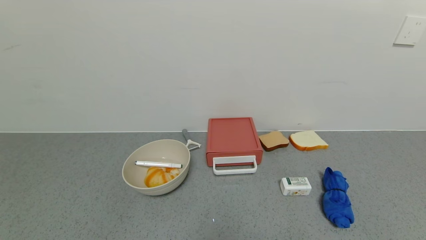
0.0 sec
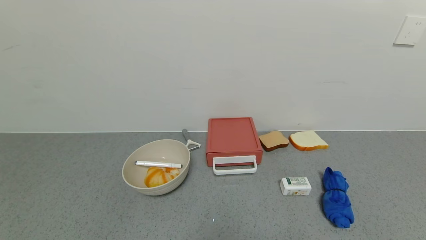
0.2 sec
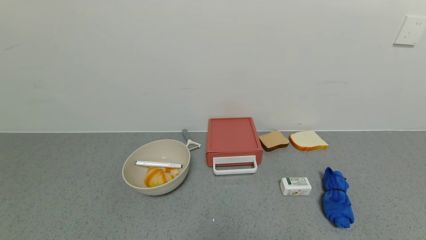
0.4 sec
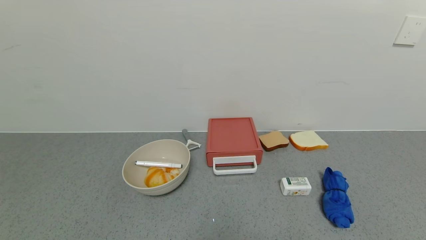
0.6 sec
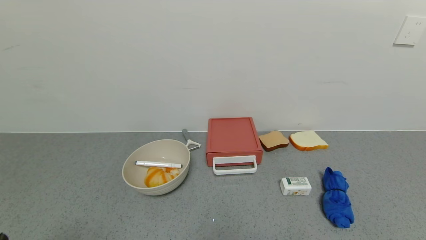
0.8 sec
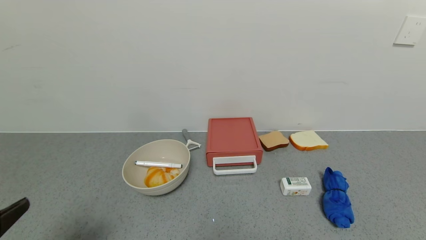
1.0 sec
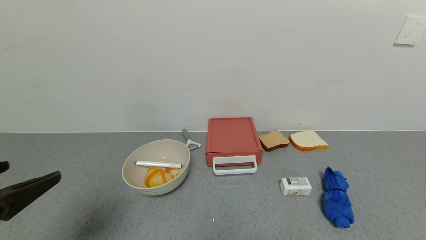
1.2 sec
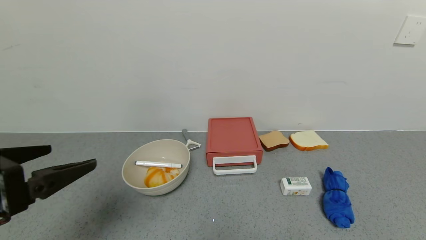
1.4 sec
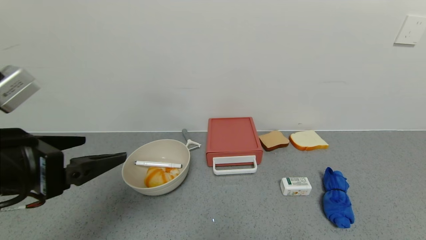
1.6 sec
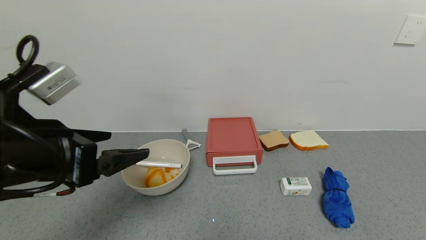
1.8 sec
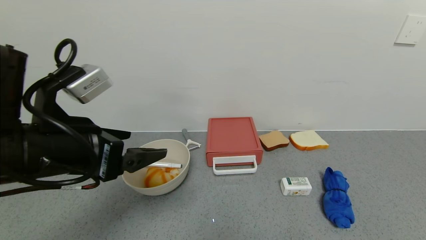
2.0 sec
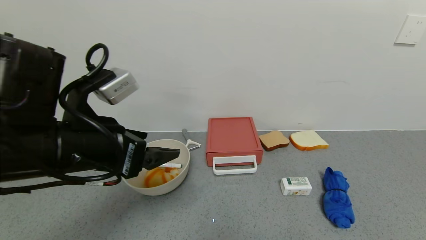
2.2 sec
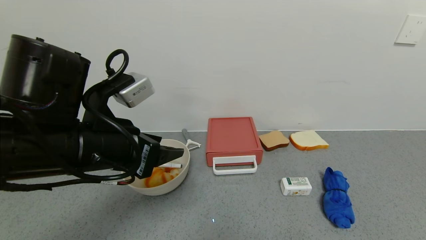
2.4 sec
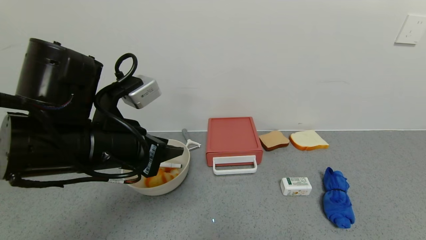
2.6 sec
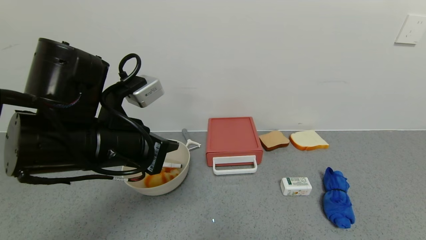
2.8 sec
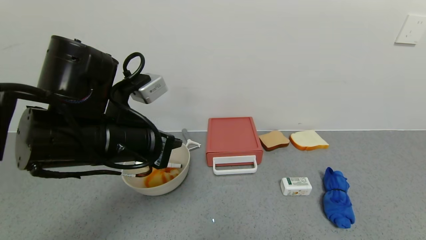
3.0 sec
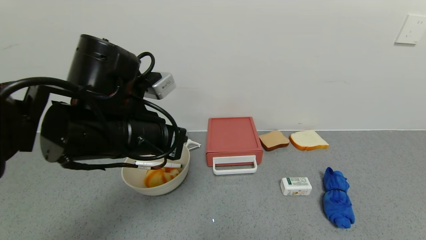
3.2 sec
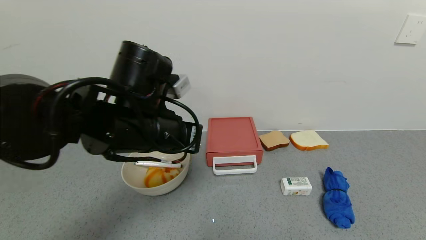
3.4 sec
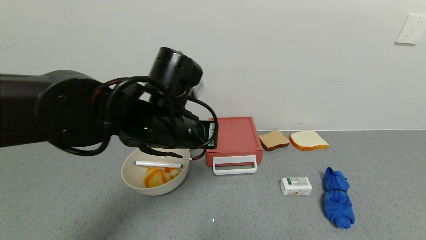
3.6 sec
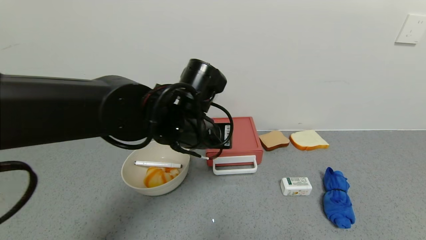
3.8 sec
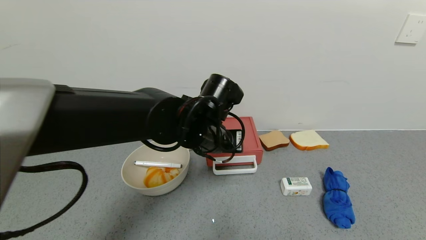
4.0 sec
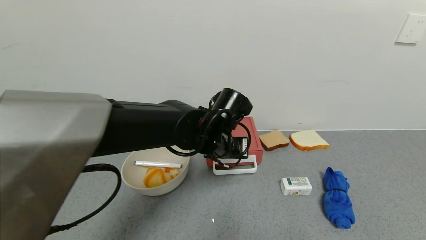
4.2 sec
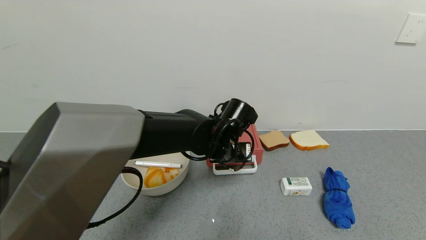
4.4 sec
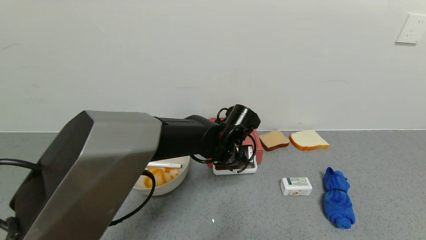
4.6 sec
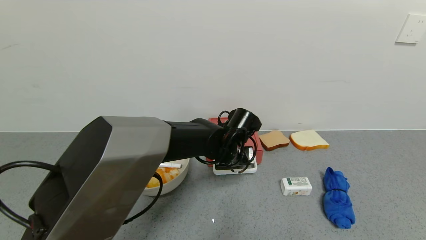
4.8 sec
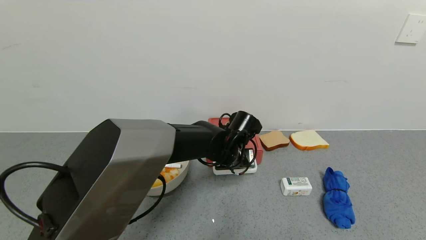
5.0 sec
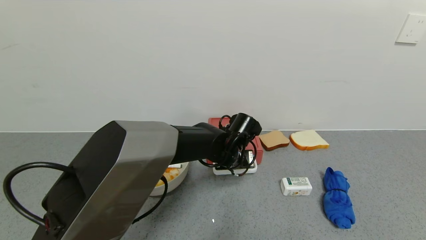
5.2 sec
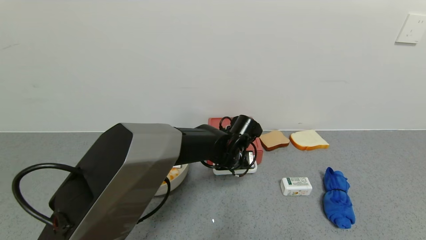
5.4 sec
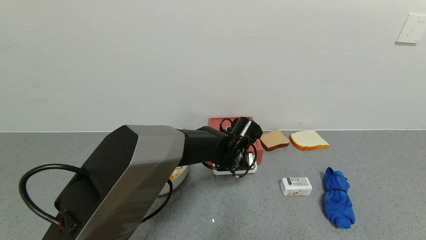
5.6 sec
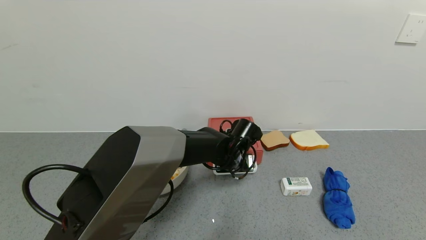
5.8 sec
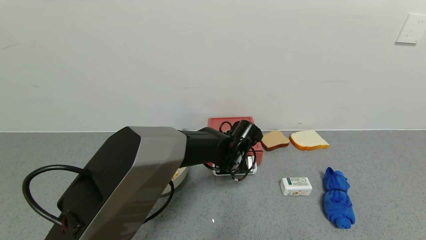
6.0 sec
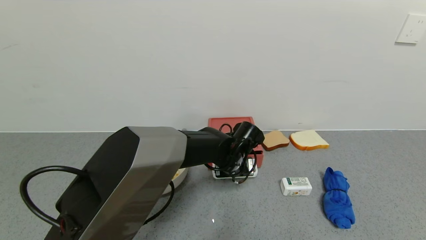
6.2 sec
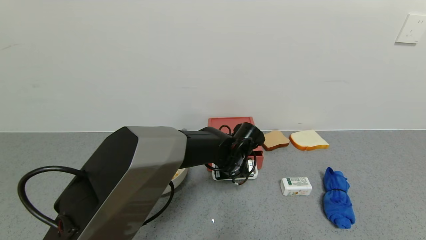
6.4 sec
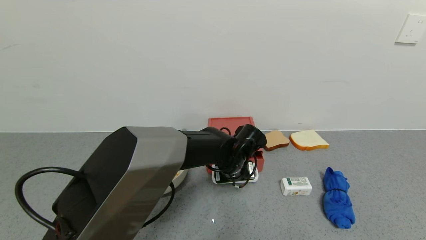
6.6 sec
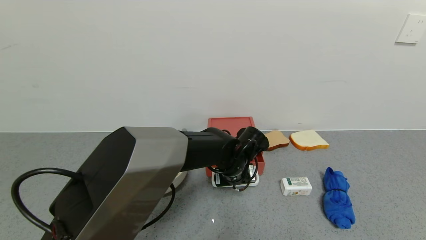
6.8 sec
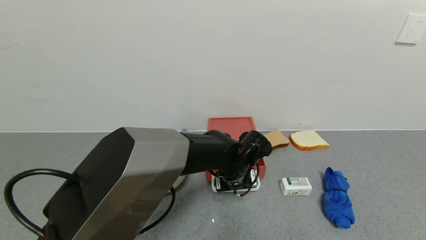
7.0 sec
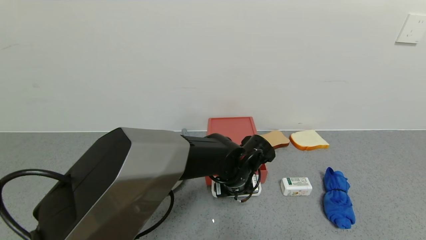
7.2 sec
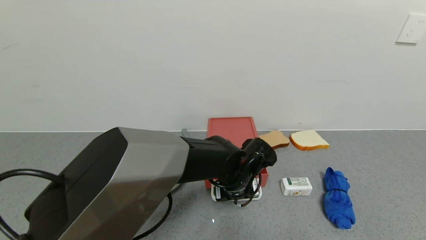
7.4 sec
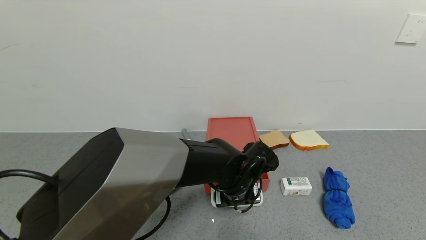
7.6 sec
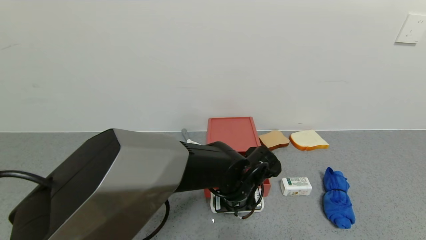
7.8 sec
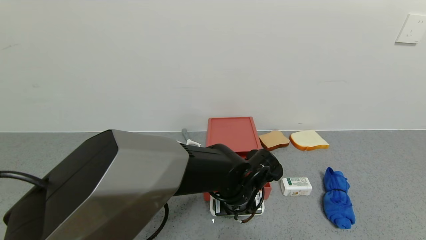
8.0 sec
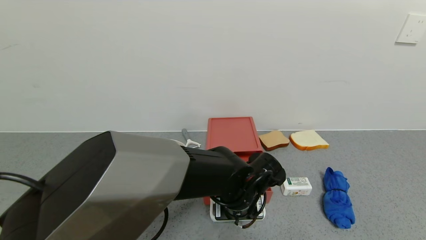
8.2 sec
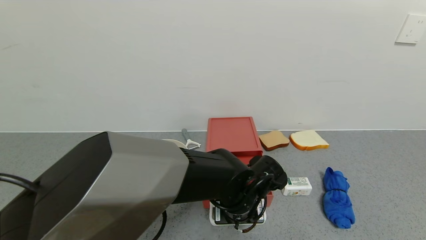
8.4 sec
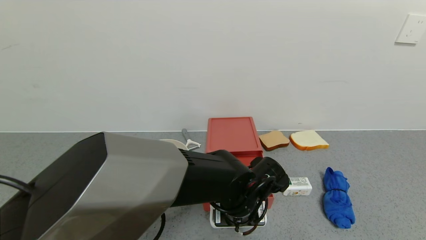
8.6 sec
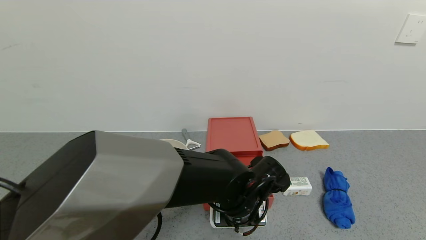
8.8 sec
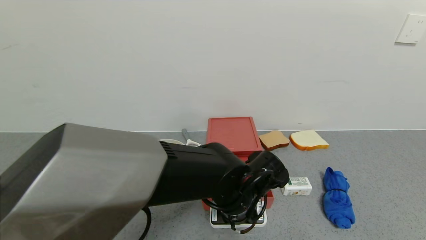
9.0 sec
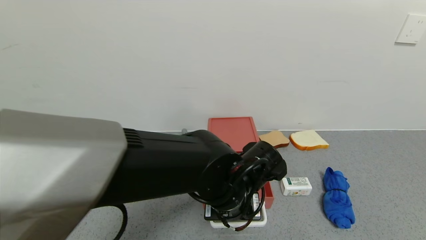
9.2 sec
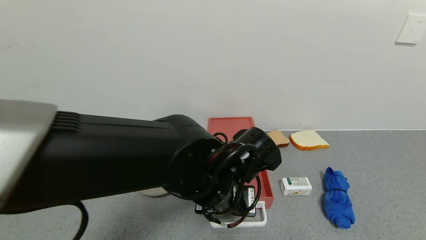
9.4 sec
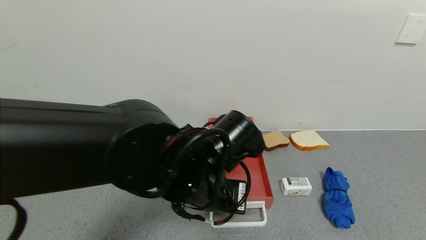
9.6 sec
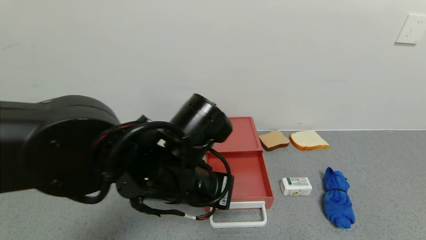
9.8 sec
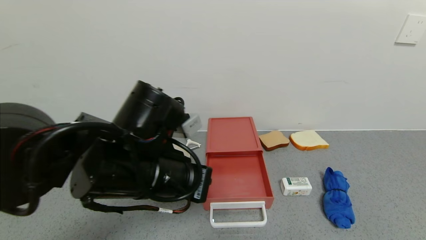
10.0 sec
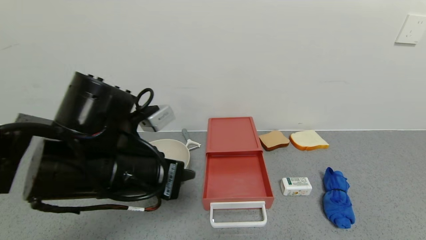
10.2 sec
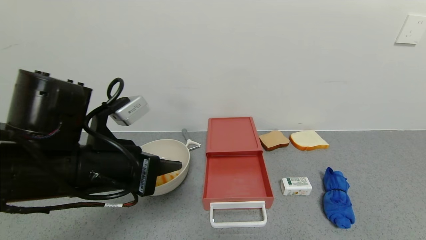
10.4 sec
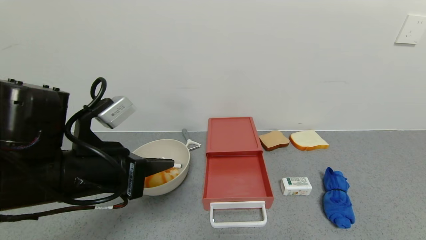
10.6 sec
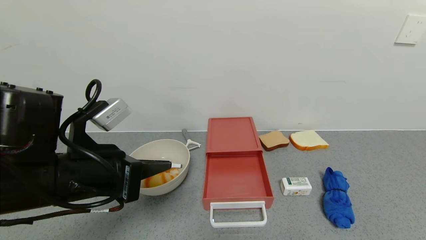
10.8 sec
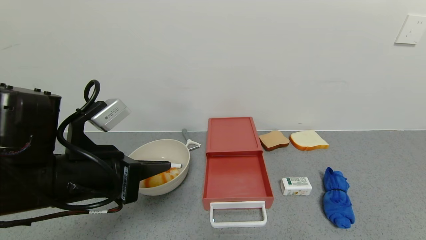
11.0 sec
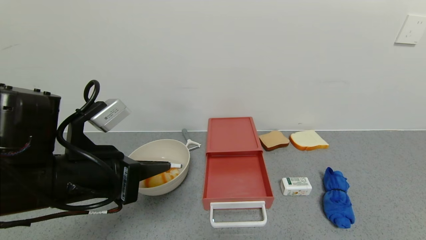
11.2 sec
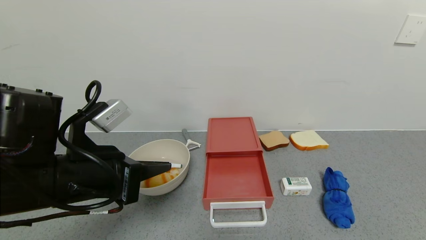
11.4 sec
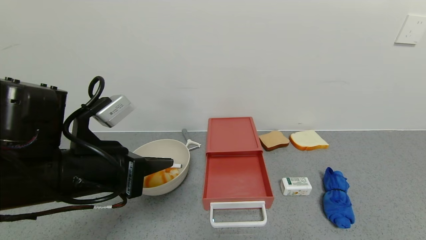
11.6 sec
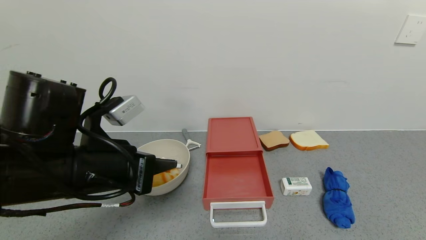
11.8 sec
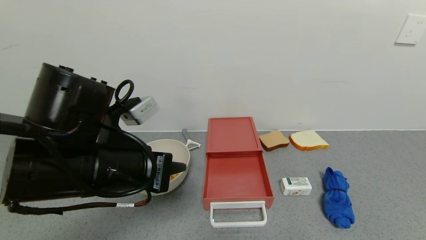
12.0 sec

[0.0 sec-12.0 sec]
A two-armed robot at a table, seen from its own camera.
Task of the whole recording: use the gripper to open the drawer and close the red drawer.
Step, 0.0 sec to 9.4 sec: Open the red drawer with left gripper.
0.0 sec to 1.6 sec: The left gripper goes some 25 cm upward and forward.
1.6 sec to 3.0 sec: The left gripper heads to the right and forward, covering approximately 10 cm, and closes its fingers.
3.0 sec to 4.4 sec: The left gripper shifts roughly 20 cm to the right, forward and downward.
4.4 sec to 6.0 sec: The left gripper travels downward by about 5 cm.
6.0 sec to 7.6 sec: The left gripper moves backward, some 10 cm.
7.6 sec to 9.0 sec: The left gripper moves some 5 cm.
9.0 sec to 10.4 sec: The left gripper shifts about 25 cm to the left and upward.
10.4 sec to 12.0 sec: The grippers move only a little.

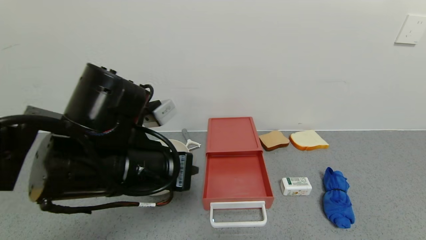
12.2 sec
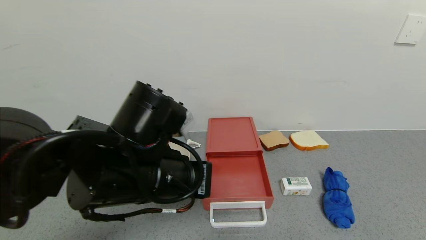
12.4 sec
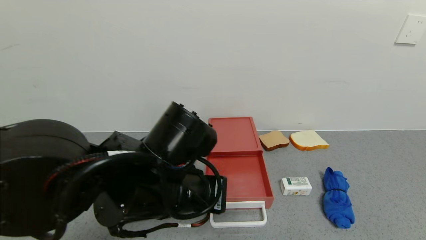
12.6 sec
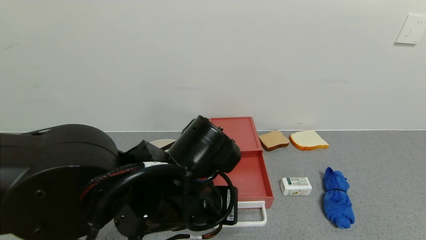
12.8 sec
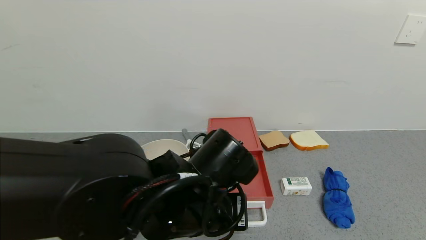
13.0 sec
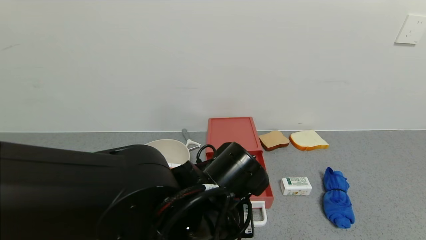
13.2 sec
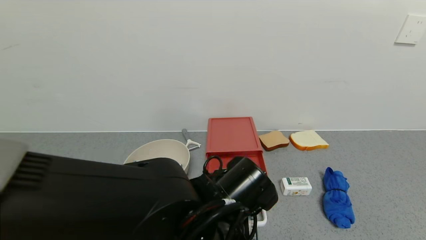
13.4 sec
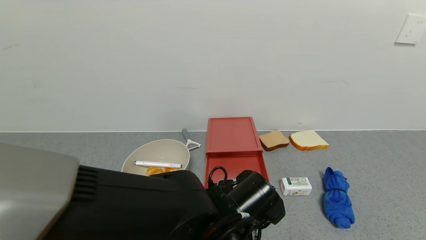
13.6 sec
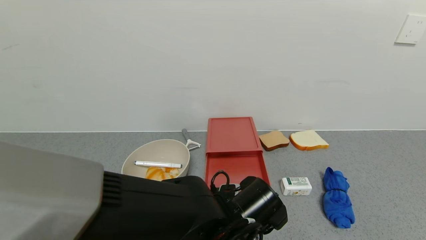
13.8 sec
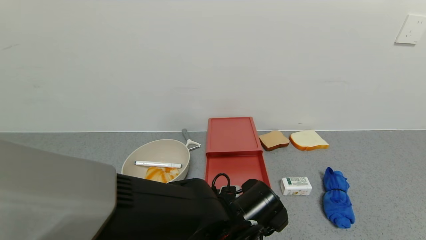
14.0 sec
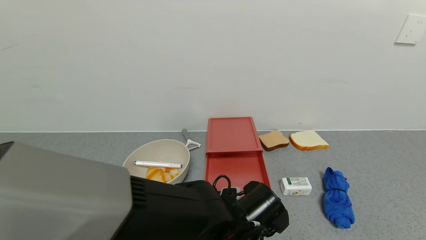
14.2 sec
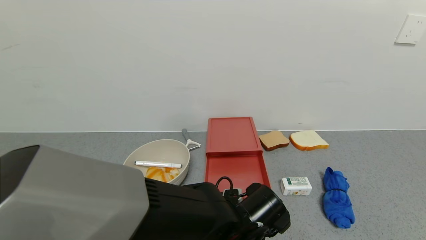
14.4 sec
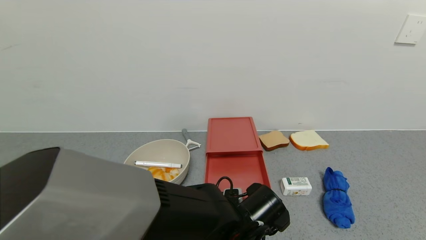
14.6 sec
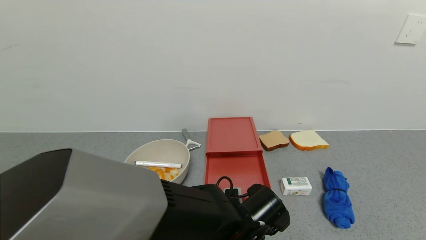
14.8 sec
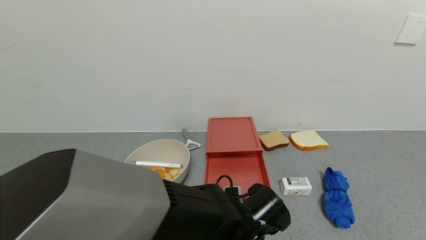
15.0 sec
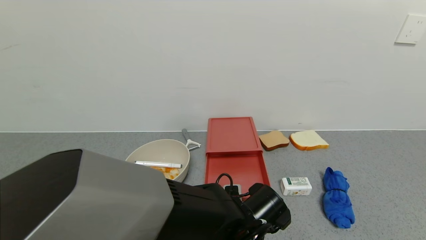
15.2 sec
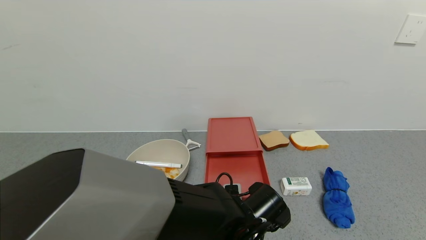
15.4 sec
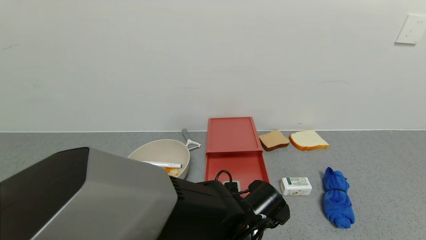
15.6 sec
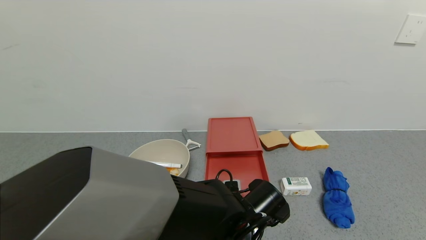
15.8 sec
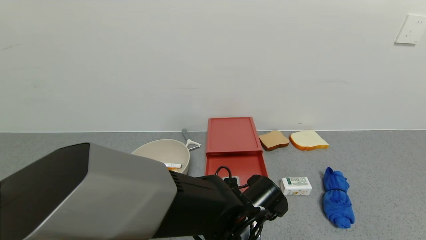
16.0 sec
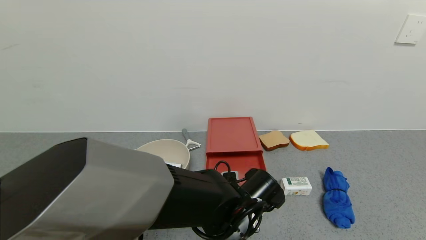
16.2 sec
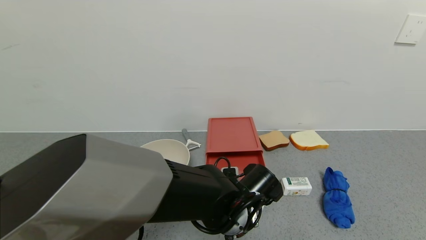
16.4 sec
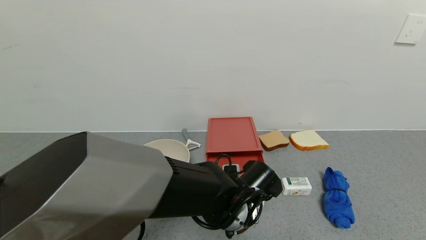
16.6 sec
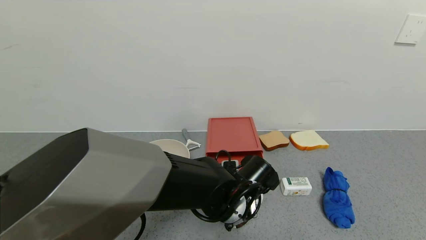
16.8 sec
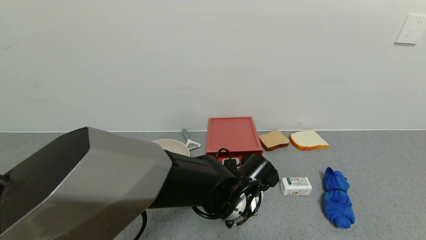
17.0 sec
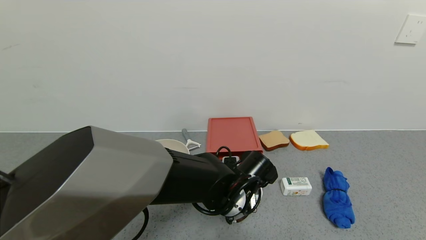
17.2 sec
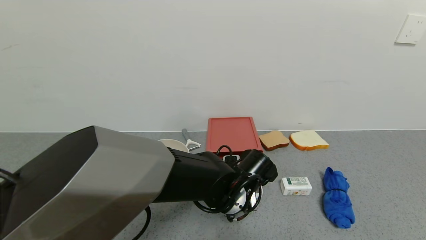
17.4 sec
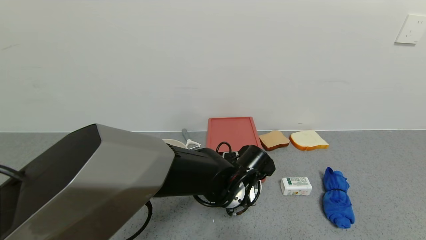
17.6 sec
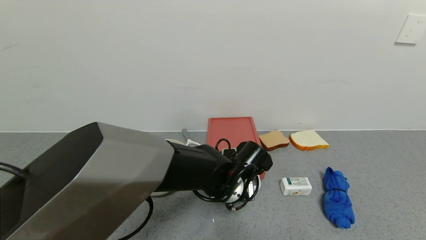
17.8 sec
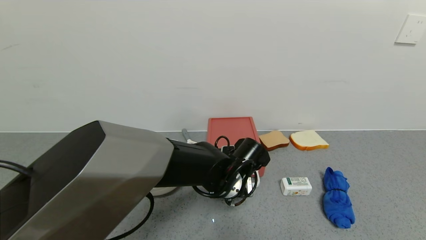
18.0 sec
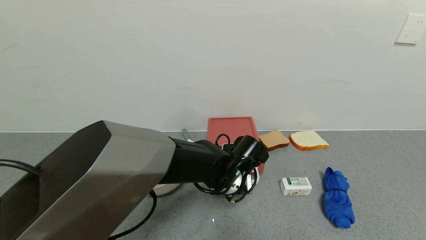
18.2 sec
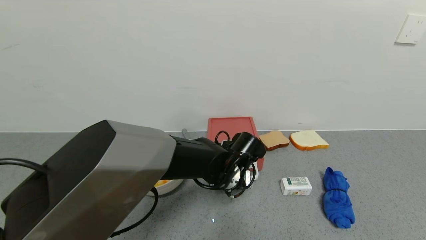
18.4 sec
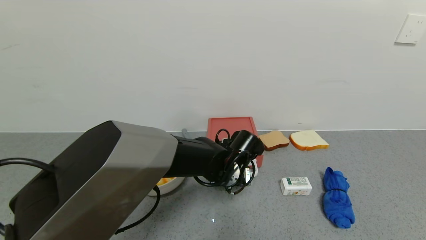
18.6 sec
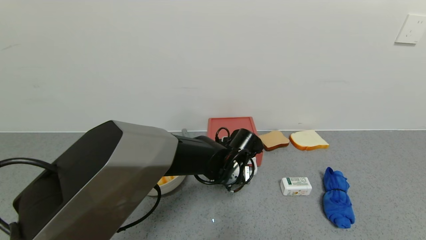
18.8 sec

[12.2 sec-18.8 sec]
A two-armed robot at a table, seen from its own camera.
Task of the whole recording: use the gripper to open the drawer and close the red drawer.
12.2 sec to 13.8 sec: The left gripper shifts about 20 cm downward and to the right.
13.8 sec to 15.4 sec: The grippers move only a little.
15.4 sec to 17.2 sec: The left gripper heads forward, covering approximately 5 cm.
17.2 sec to 18.8 sec: The left gripper moves forward, roughly 5 cm.
